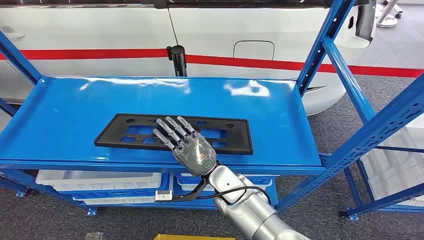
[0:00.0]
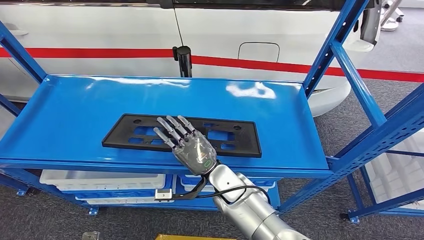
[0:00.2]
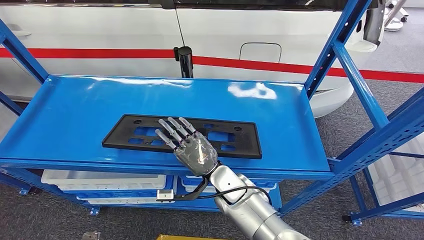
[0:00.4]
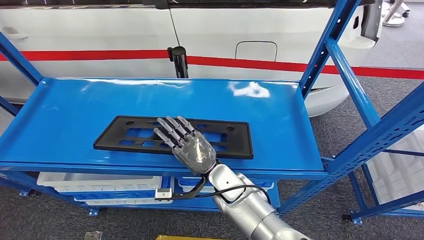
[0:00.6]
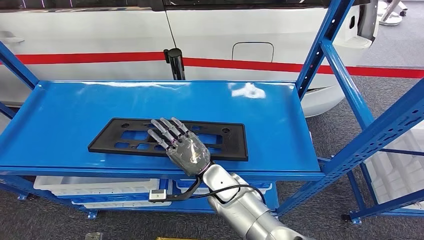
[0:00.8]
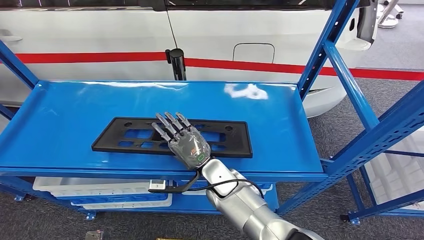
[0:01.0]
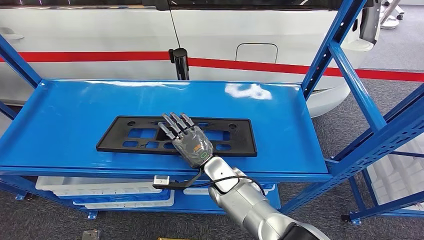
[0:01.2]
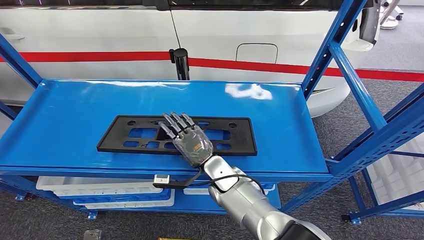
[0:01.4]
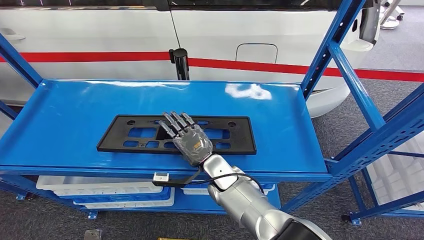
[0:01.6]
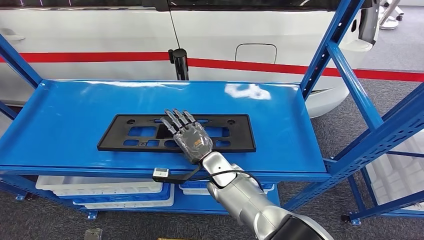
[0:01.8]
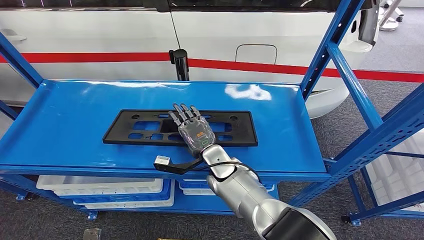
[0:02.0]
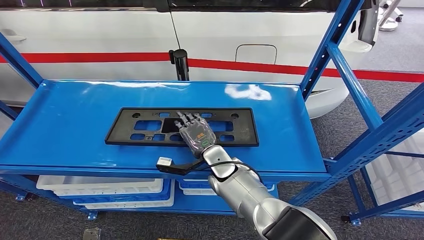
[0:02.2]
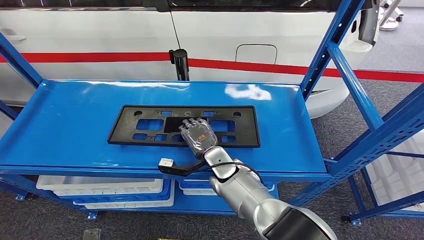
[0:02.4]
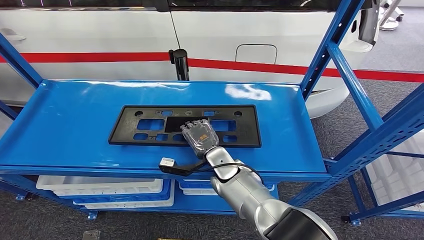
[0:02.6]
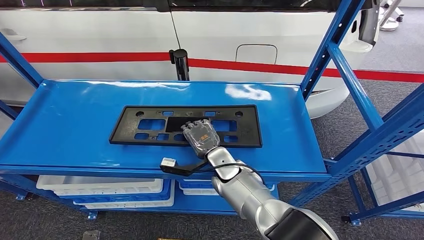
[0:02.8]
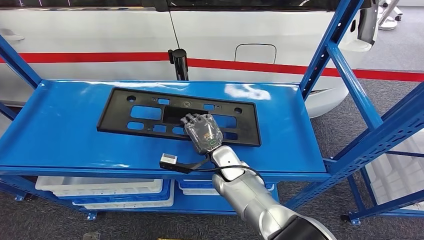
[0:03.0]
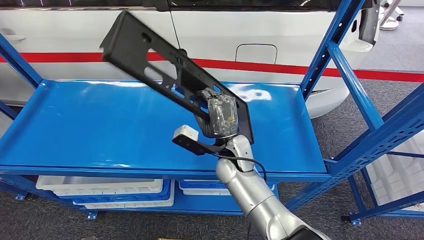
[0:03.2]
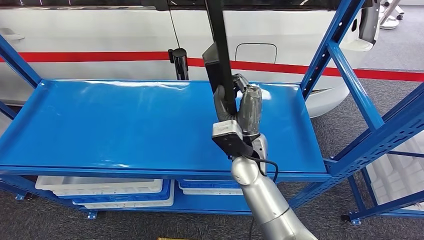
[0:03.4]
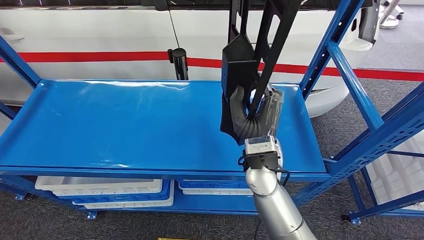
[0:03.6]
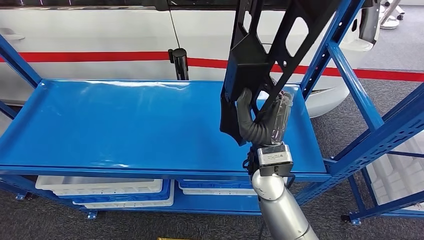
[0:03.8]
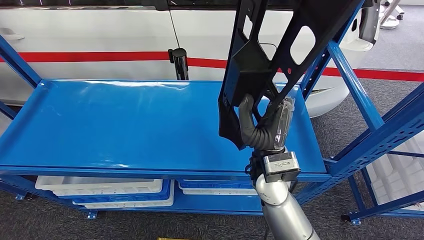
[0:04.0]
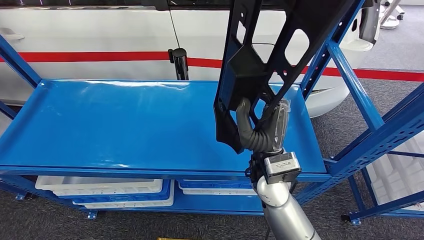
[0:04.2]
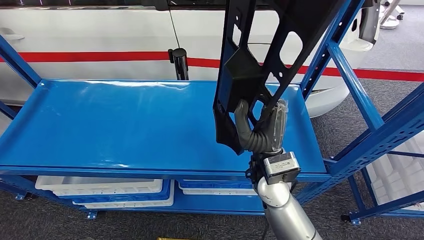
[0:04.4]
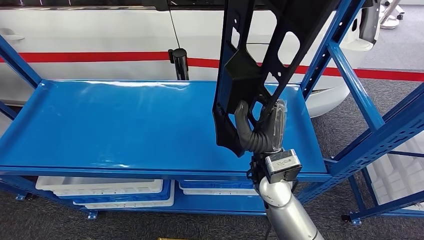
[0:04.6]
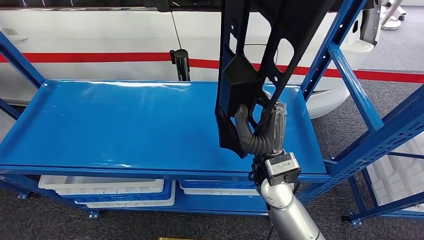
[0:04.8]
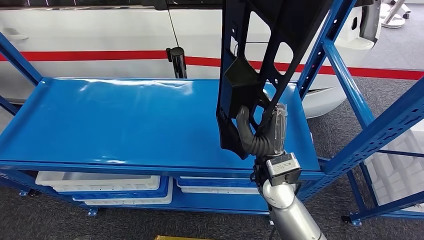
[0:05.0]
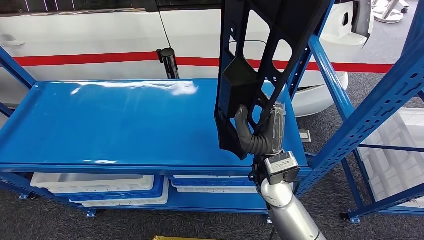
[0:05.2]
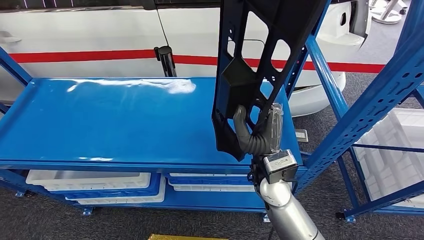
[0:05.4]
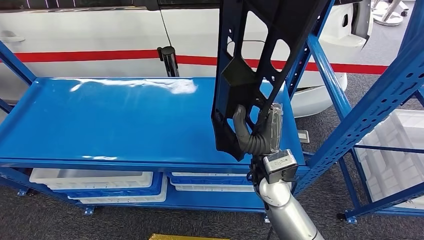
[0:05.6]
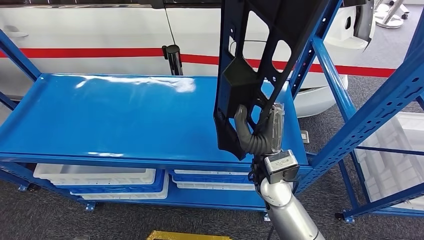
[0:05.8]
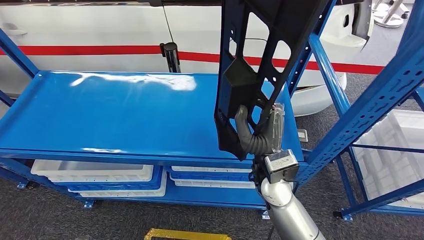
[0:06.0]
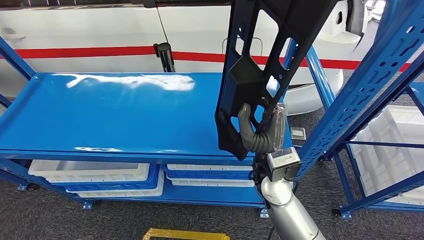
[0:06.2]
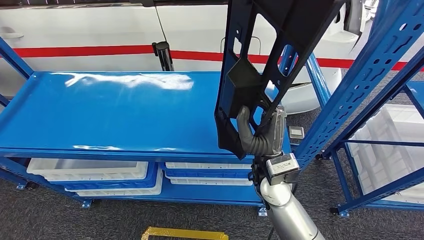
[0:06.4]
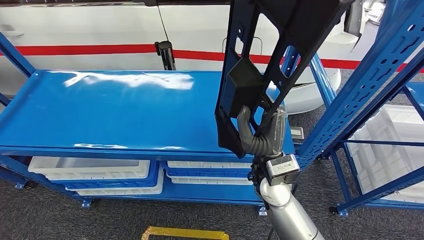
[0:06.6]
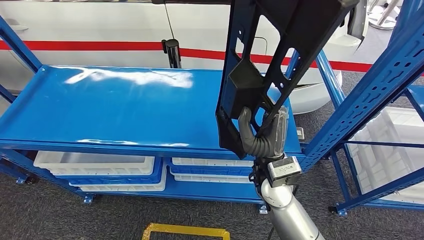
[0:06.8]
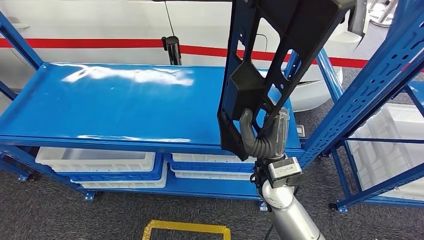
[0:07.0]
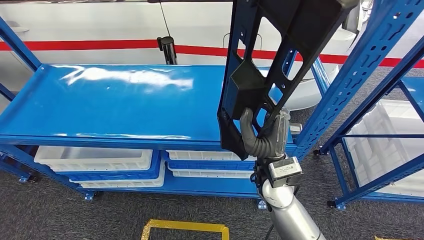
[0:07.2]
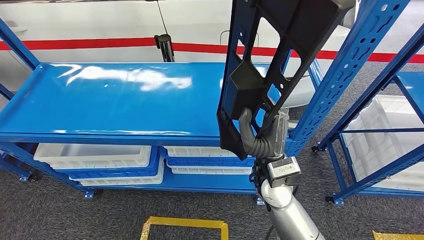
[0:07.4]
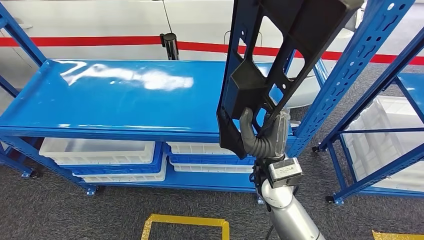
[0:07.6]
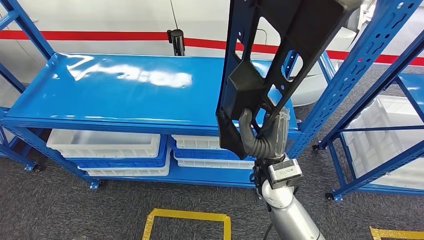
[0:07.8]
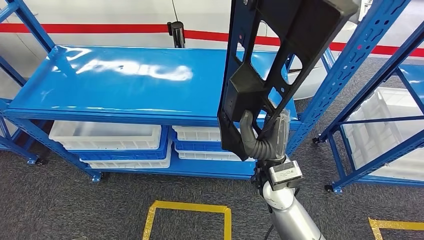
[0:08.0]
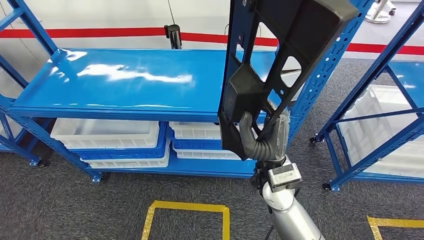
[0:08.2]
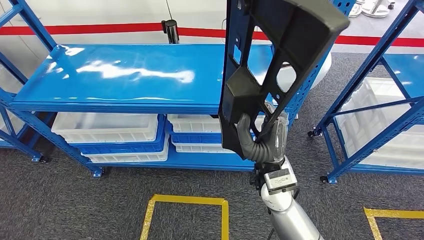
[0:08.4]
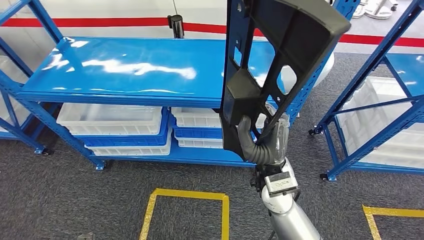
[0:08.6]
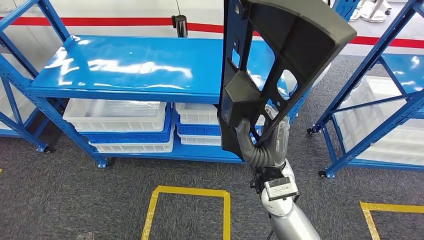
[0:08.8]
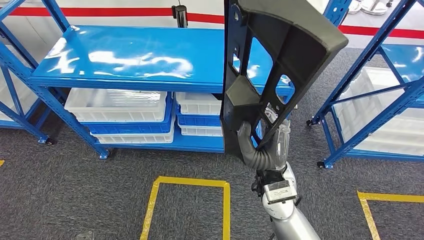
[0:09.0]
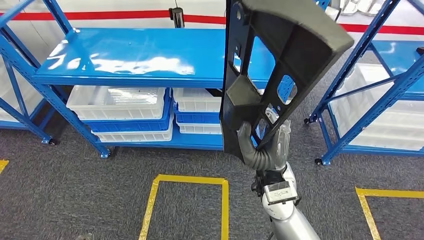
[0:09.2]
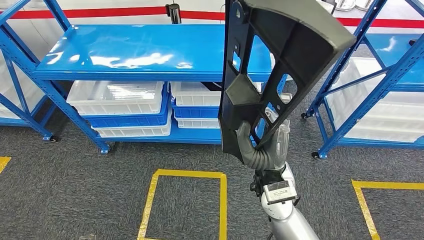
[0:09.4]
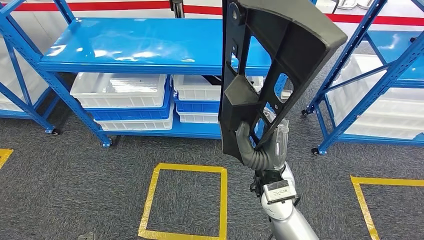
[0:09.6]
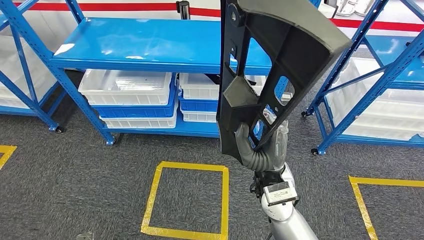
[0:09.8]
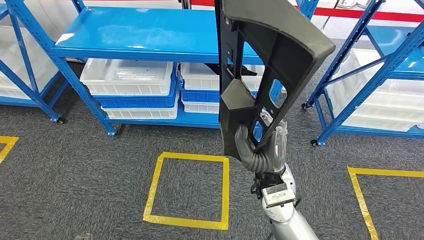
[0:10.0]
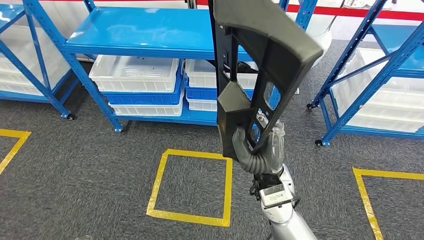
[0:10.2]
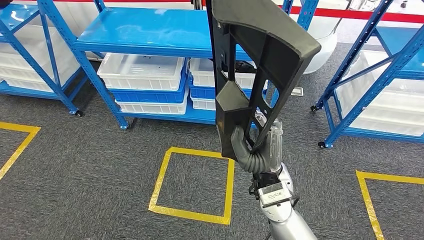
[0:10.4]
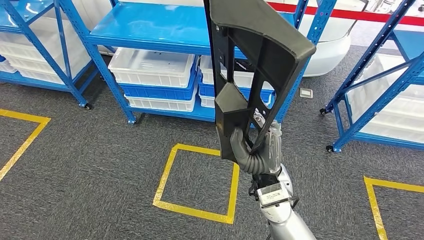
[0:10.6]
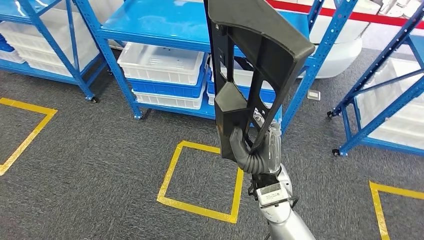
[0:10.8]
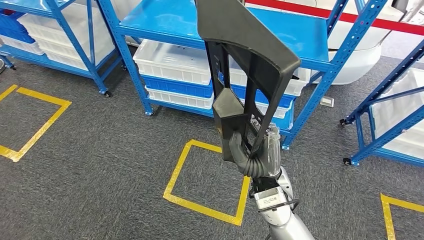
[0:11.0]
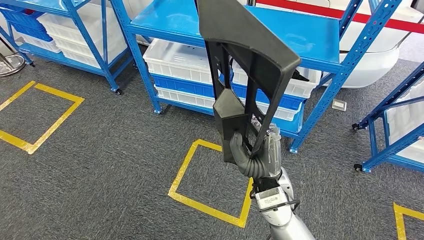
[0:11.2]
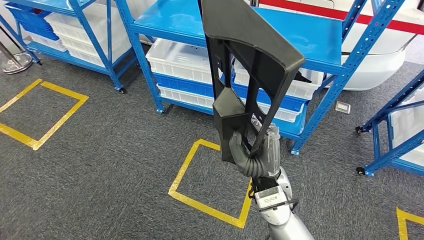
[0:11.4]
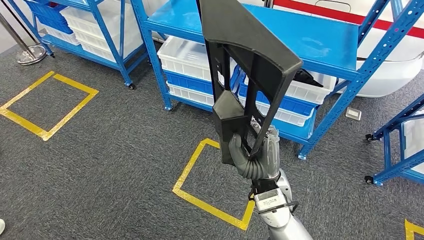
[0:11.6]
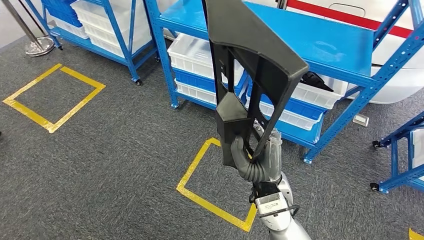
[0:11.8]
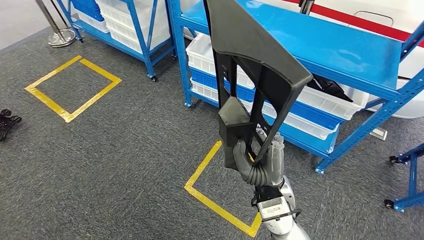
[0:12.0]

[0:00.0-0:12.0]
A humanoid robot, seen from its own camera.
Step, 0:00.0 to 0:05.8: Pick up the large material from the shelf.
0:01.6 to 0:03.0: There are only small adjustments of the hands.

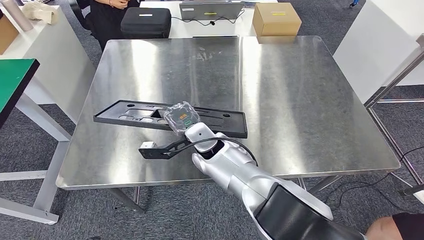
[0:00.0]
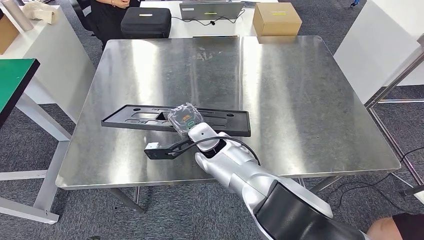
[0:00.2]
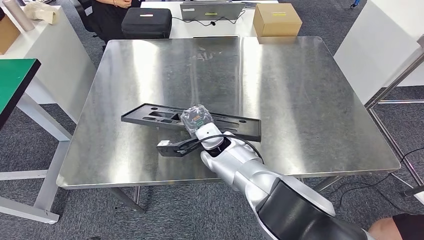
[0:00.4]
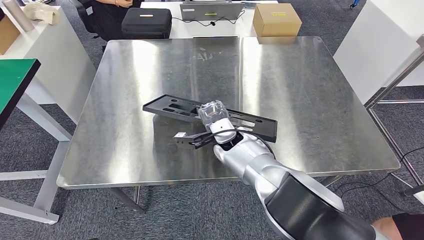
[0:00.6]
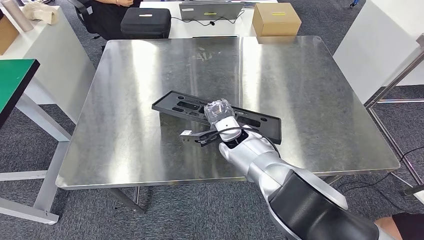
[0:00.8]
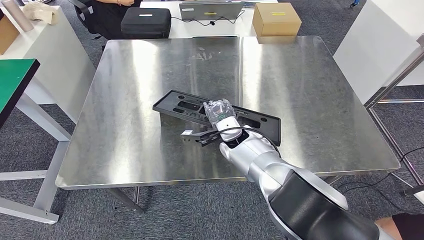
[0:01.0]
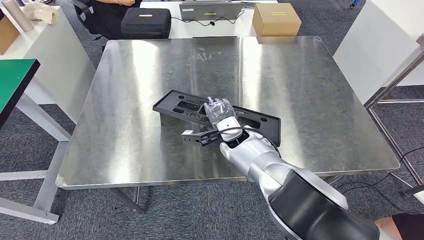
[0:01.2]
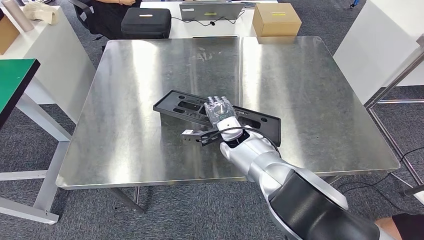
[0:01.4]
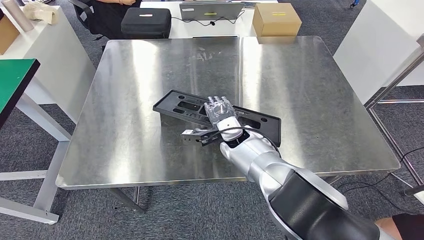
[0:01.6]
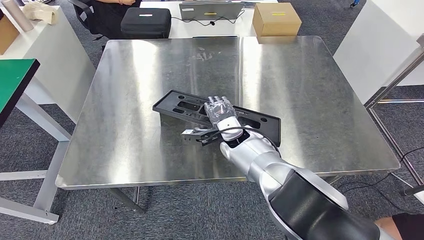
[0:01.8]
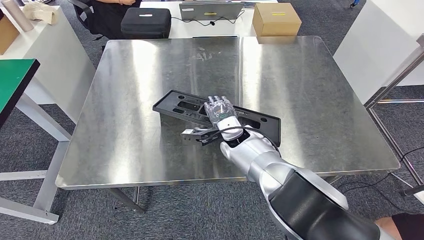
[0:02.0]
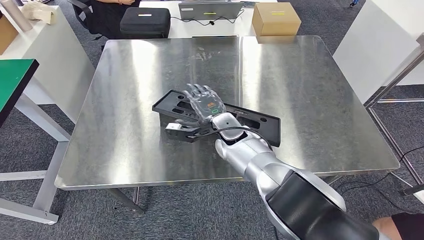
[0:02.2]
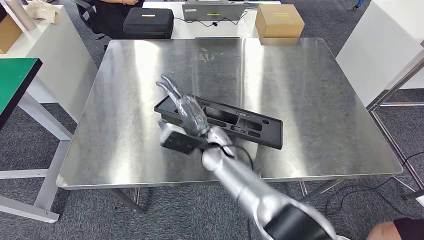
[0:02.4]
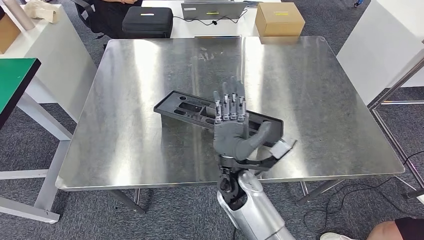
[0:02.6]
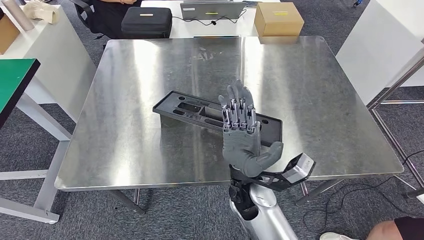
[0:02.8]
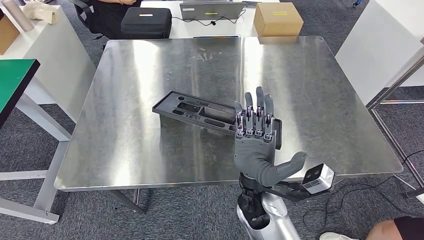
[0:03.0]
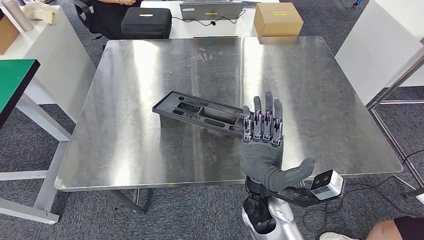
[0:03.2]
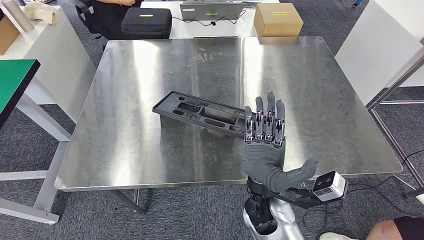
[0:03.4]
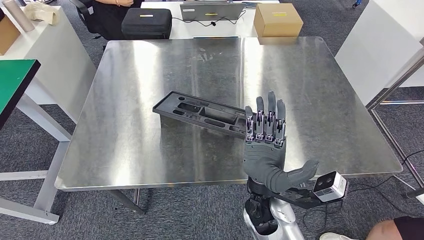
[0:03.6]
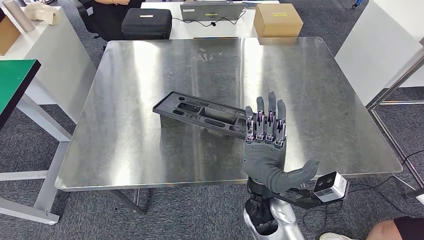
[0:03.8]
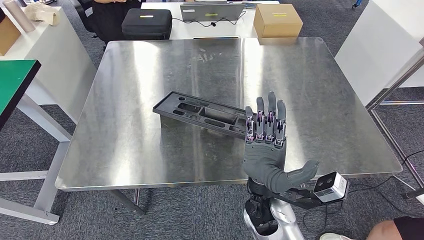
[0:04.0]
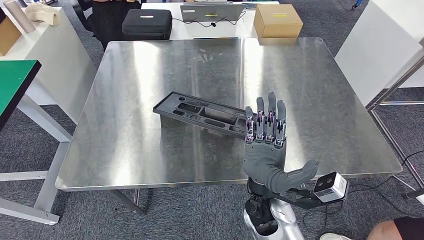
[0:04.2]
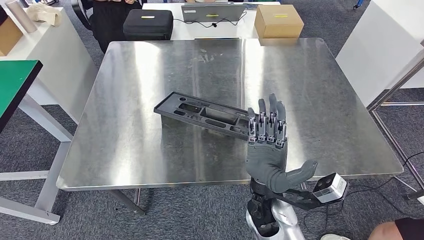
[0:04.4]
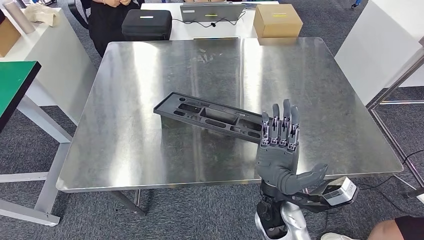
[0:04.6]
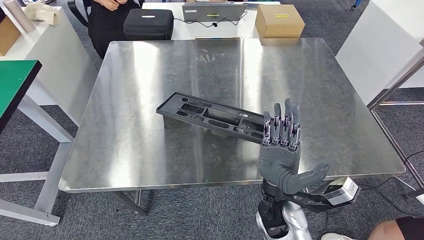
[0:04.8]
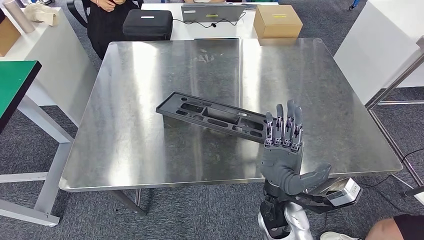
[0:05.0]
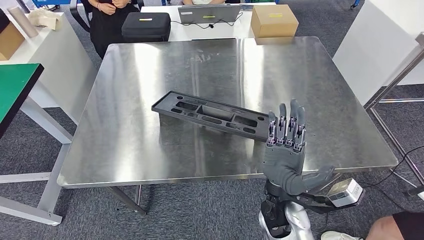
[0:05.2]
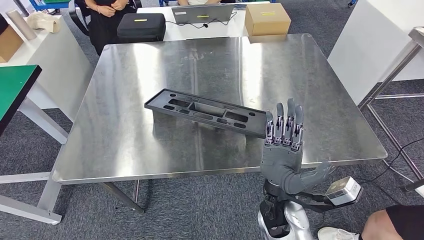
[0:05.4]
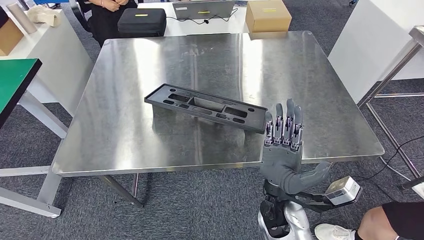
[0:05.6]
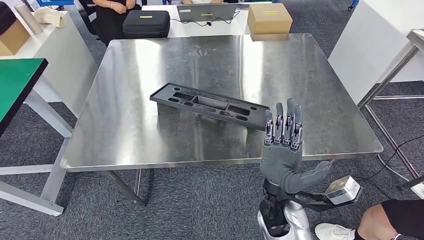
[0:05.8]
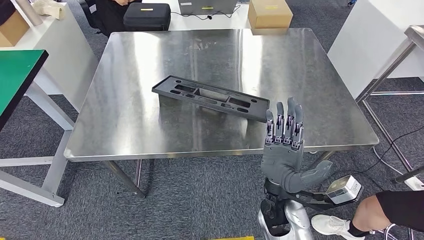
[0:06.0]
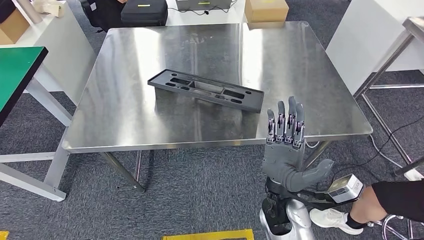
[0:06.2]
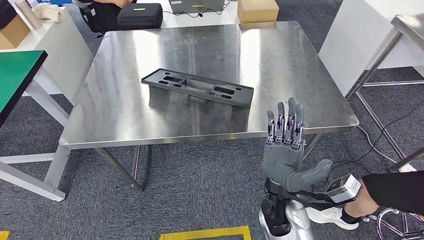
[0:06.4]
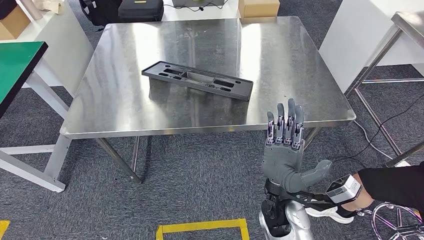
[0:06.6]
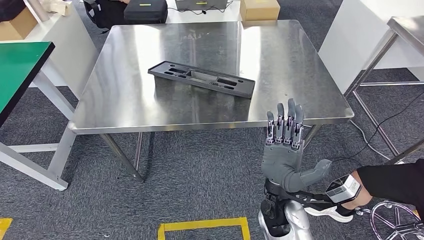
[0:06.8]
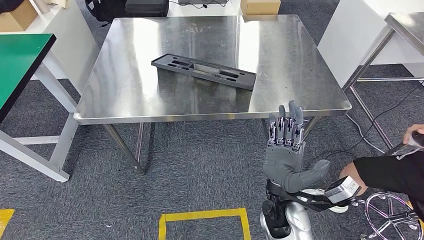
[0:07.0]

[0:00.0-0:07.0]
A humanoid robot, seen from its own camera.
Step, 0:00.0 to 0:04.8: Insert the large material into the corresponding slot on the workbench.
0:00.0 to 0:01.4: The right hand heads to the right, covering approximately 10 cm.
0:01.4 to 0:02.8: The right hand heads backward, covering about 15 cm.
0:02.8 to 0:04.2: The hands stay close to where they were, moving slightly.
